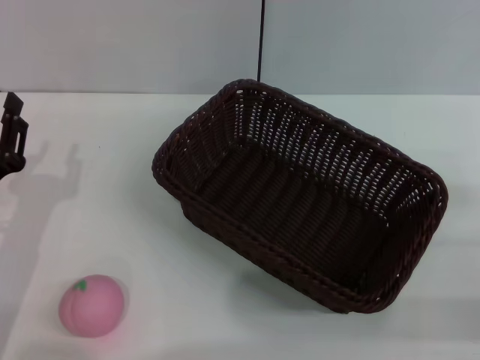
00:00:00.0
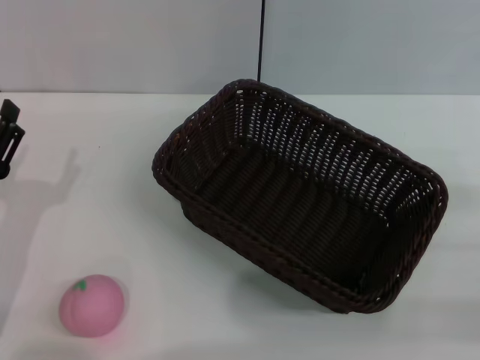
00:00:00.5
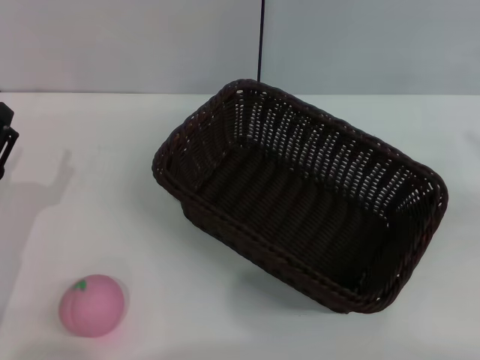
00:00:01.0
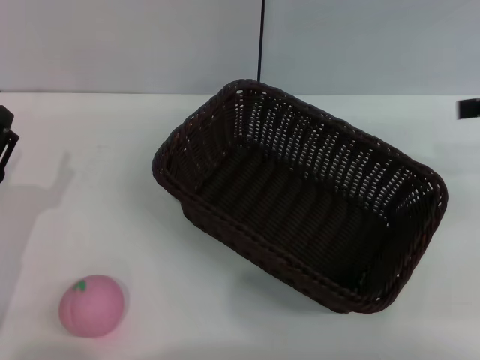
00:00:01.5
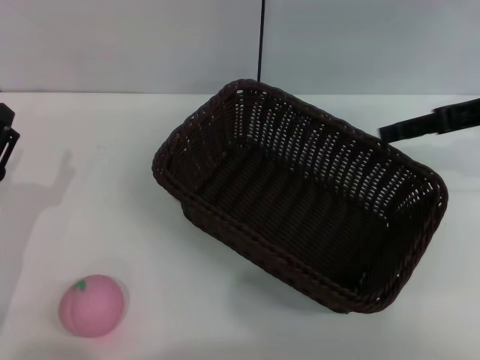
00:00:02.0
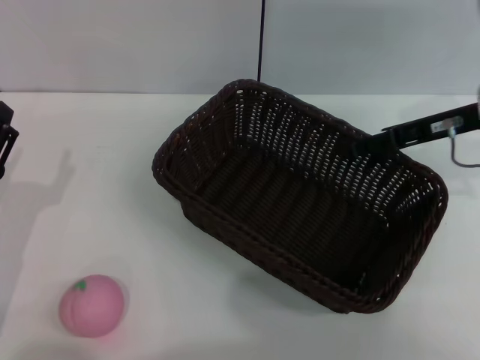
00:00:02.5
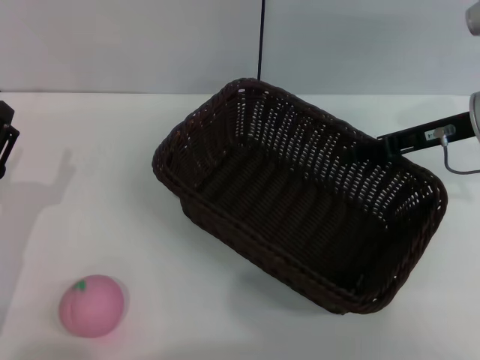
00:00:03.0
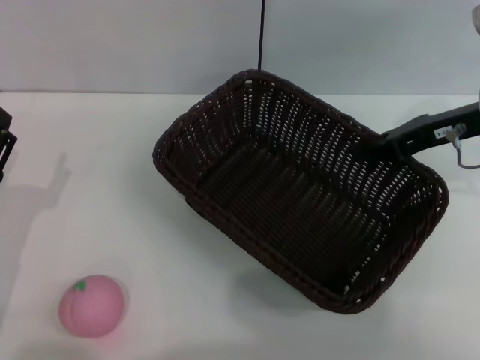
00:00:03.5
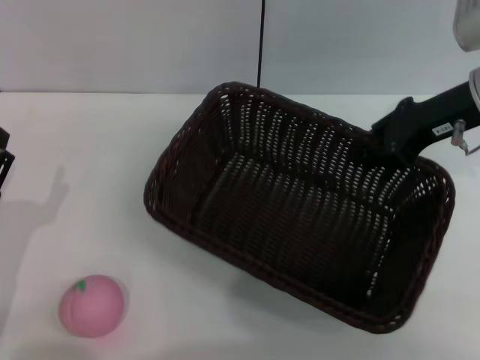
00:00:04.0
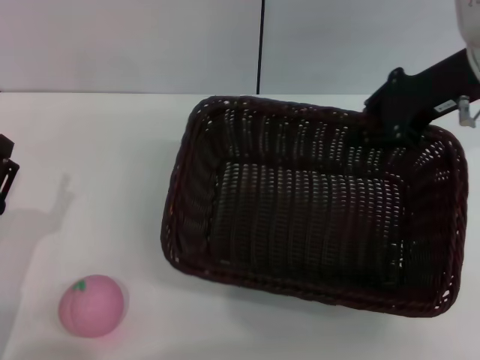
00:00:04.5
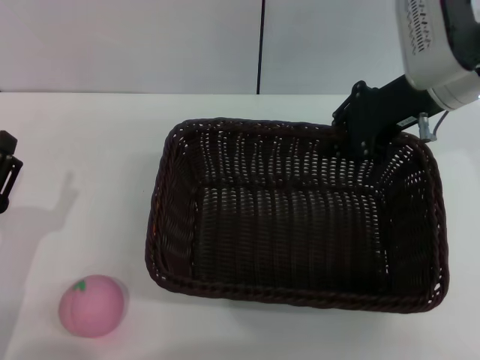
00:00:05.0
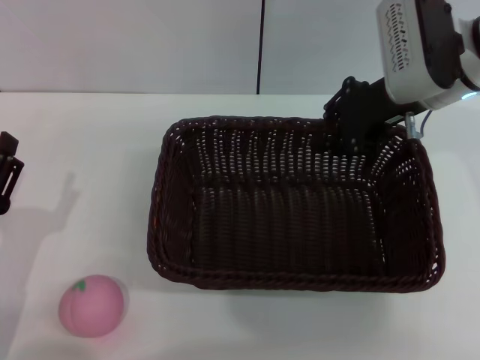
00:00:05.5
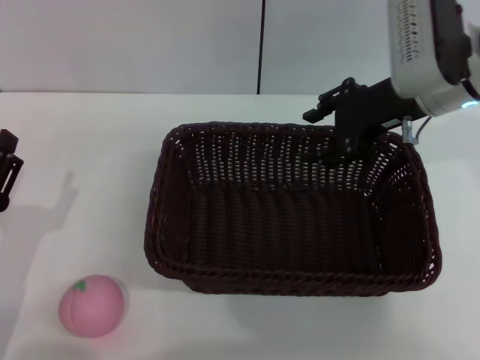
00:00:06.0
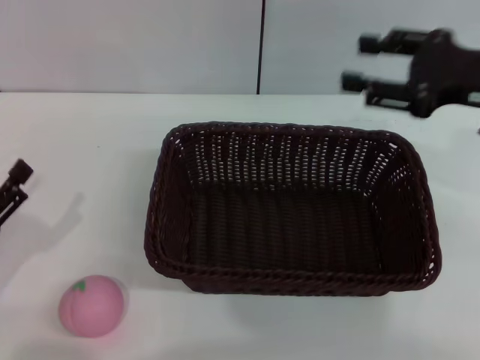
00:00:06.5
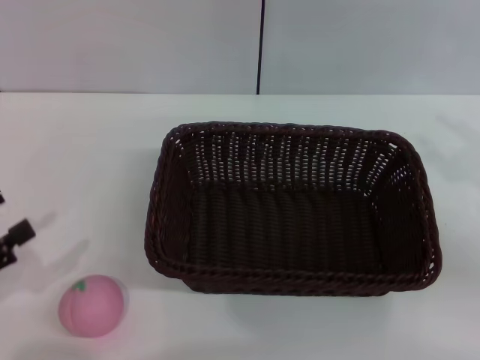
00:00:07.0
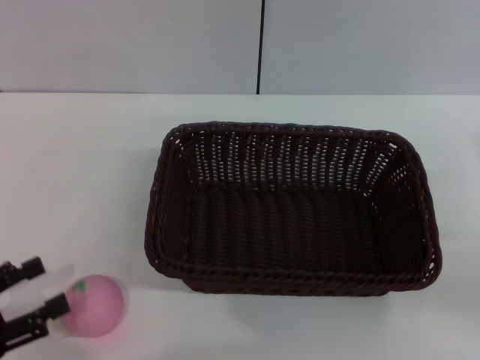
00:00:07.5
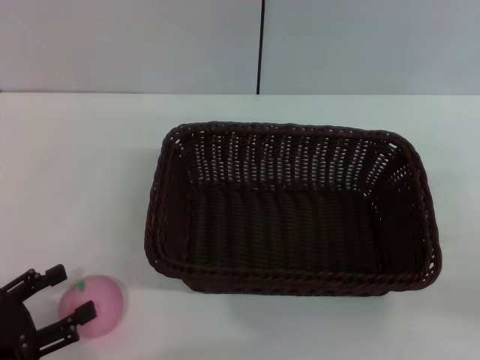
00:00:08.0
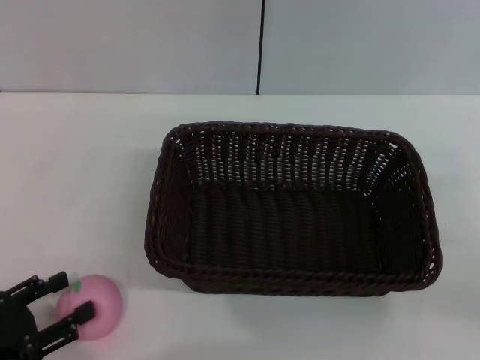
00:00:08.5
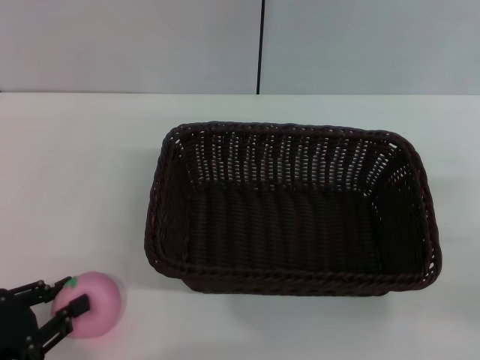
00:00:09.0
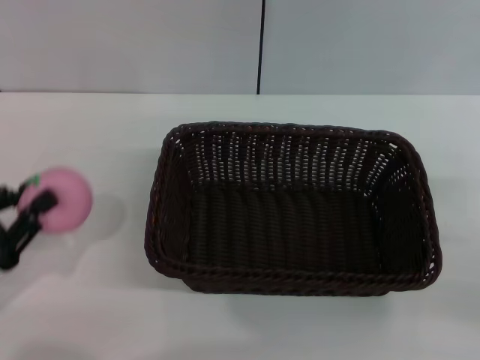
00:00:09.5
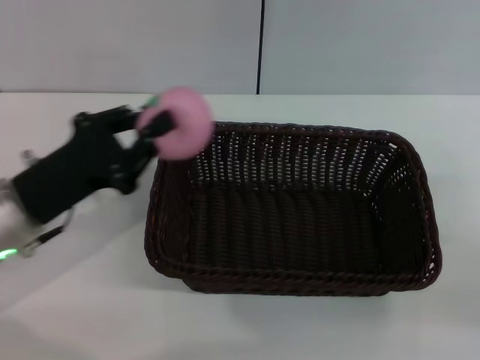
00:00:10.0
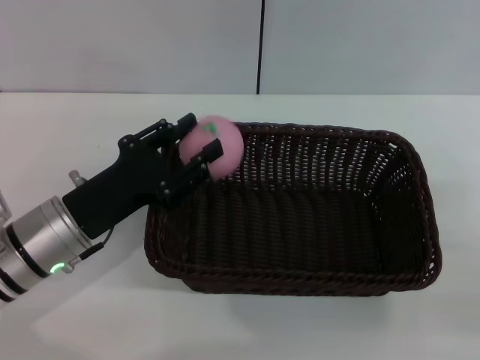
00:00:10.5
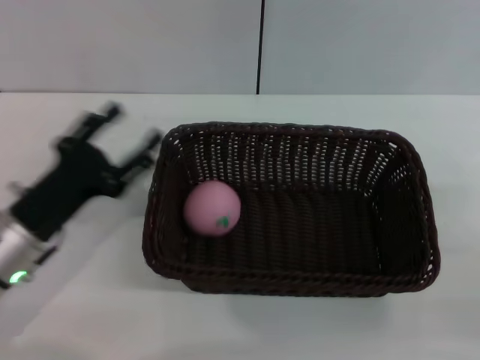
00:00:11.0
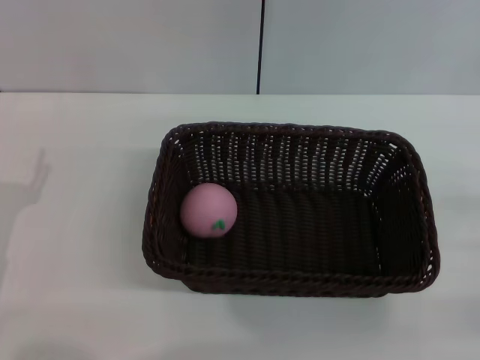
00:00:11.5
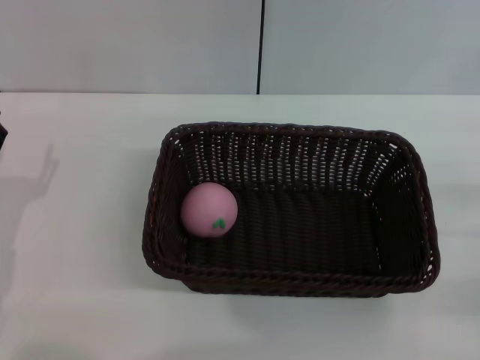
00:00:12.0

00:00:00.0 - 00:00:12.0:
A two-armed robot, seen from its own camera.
Step, 00:00:00.0 - 00:00:03.5: Pick up the dark basket with the right gripper.
Step, 00:00:04.0 - 00:00:06.0: Place the dark basket in the center of view with the right gripper.
Step, 00:00:06.5 - 00:00:09.5: Pick up the peach with the left gripper.
Step, 00:00:10.0 - 00:00:10.5: Place the peach into the basket with the left gripper.
00:00:00.0 - 00:00:02.0: The right gripper travels forward, upward and to the left by some 20 cm, and opens. The left gripper opens up.
00:00:02.0 - 00:00:04.0: The right gripper goes roughly 5 cm to the left, and closes.
00:00:04.0 - 00:00:06.0: The right gripper changes place by approximately 5 cm, and opens up.
00:00:06.0 - 00:00:08.0: The right gripper is displaced to the right, backward and downward by roughly 25 cm. The left gripper is displaced to the left by roughly 5 cm.
00:00:08.0 - 00:00:10.0: The left gripper shifts some 15 cm forward and to the right, and closes.
00:00:10.0 - 00:00:12.0: The left gripper shifts some 5 cm to the left, and opens.

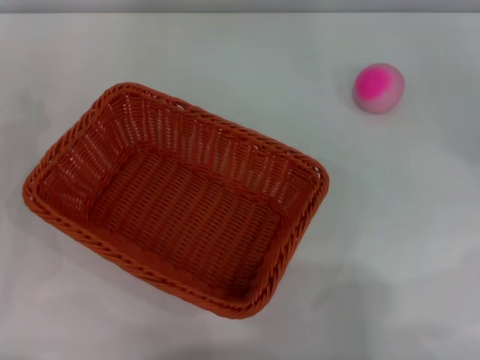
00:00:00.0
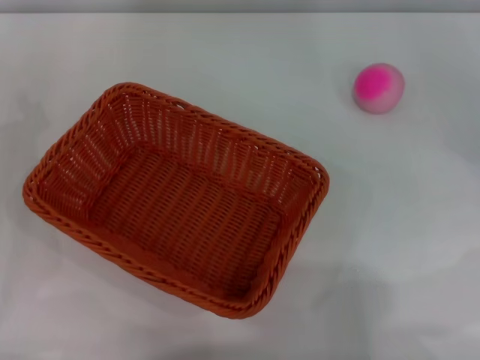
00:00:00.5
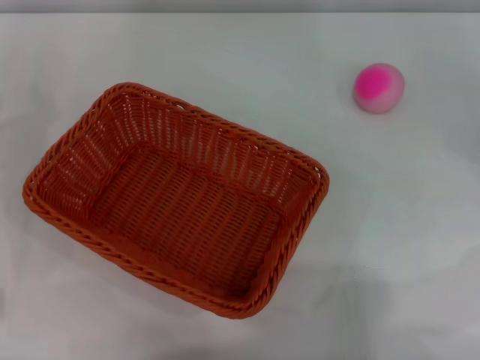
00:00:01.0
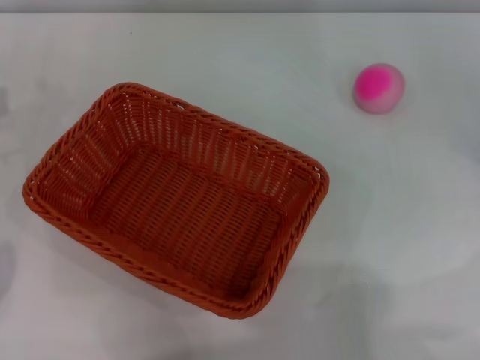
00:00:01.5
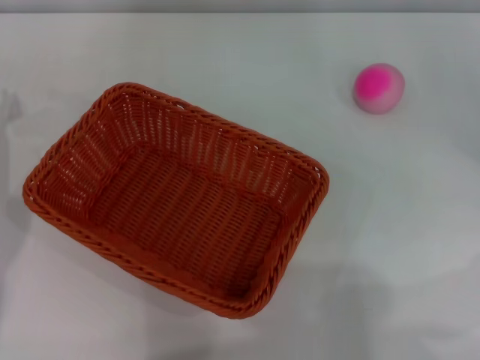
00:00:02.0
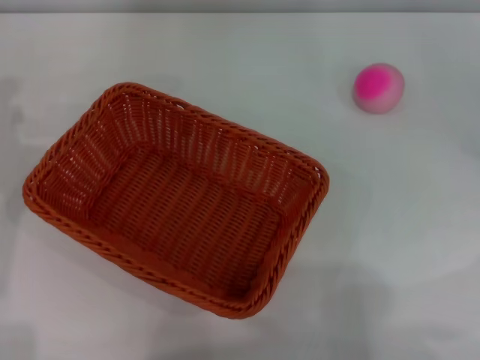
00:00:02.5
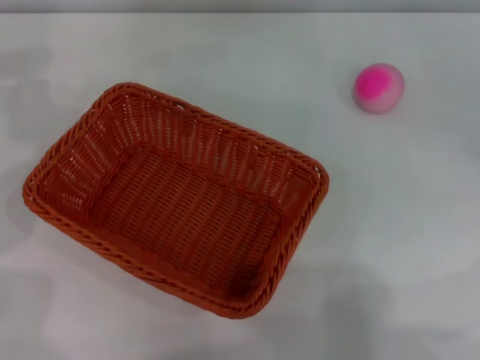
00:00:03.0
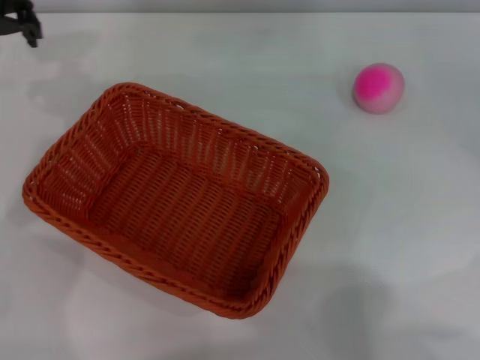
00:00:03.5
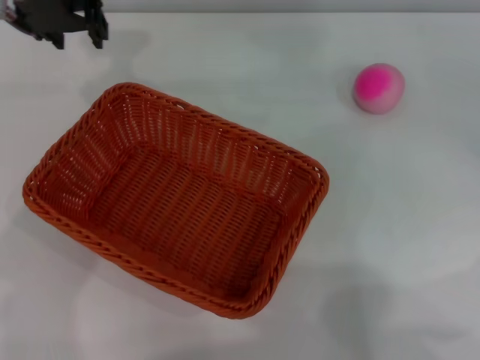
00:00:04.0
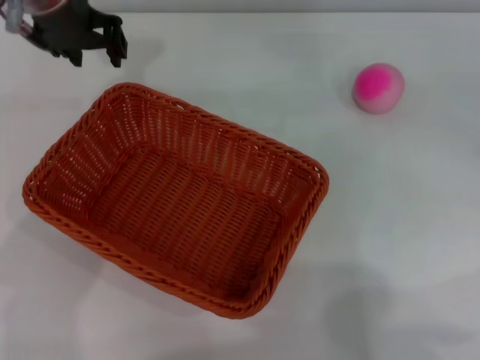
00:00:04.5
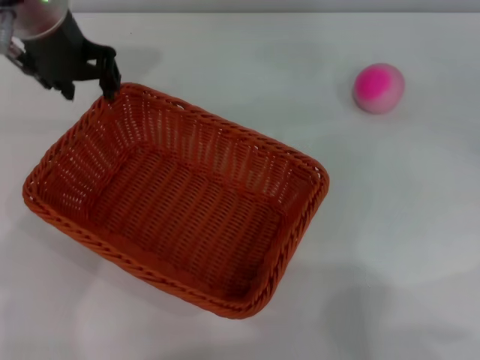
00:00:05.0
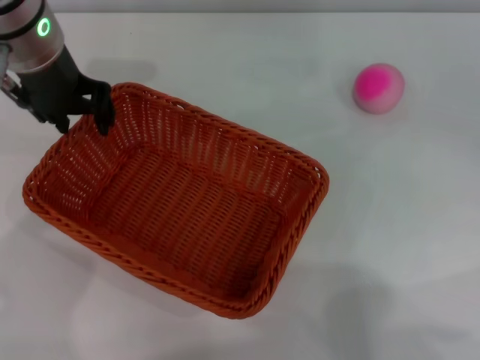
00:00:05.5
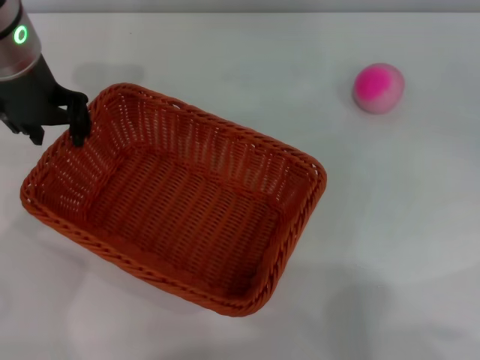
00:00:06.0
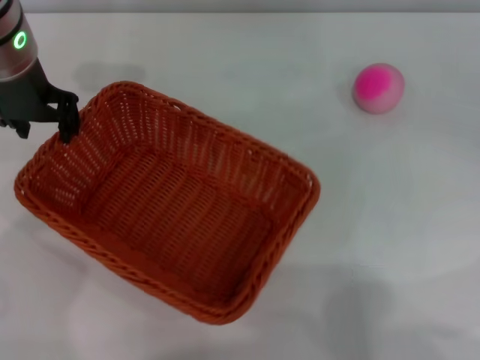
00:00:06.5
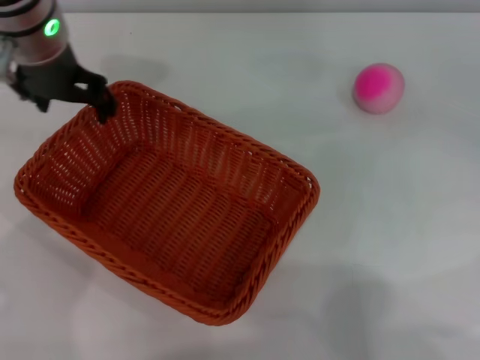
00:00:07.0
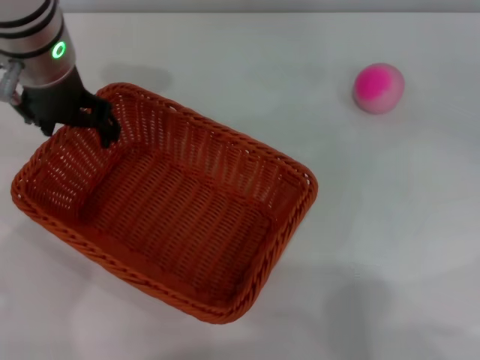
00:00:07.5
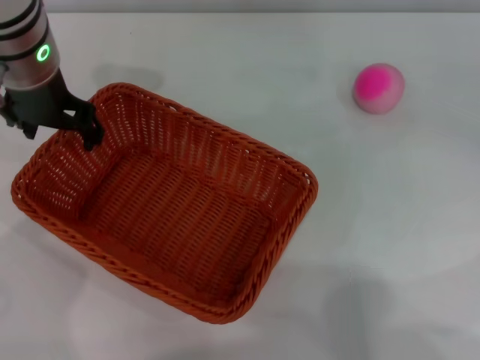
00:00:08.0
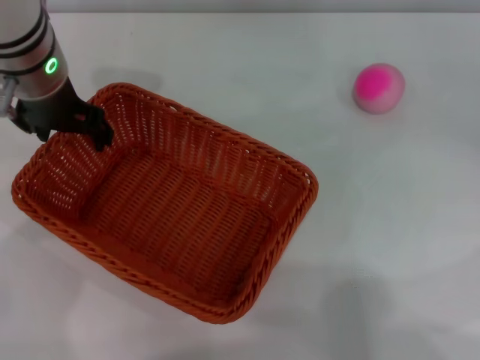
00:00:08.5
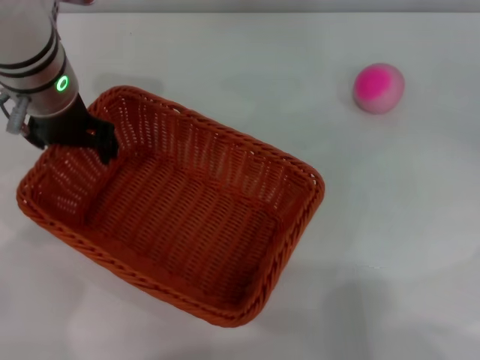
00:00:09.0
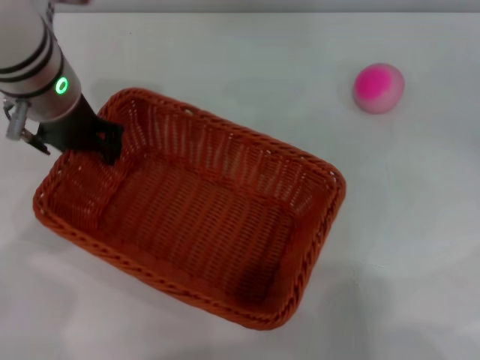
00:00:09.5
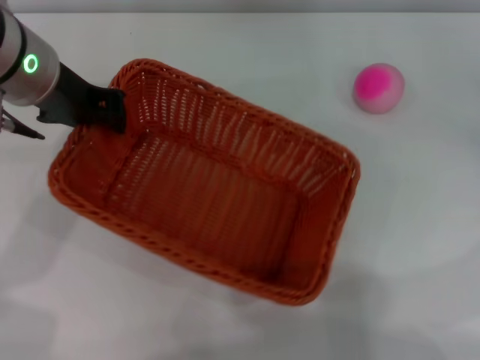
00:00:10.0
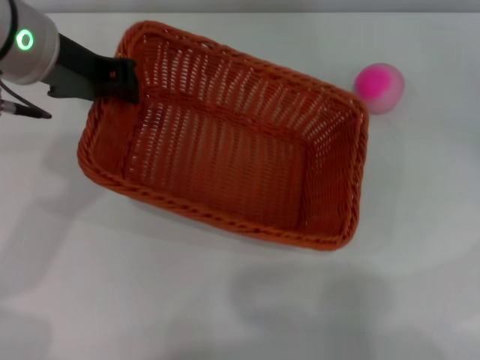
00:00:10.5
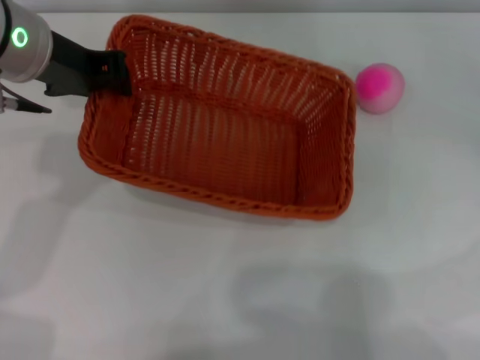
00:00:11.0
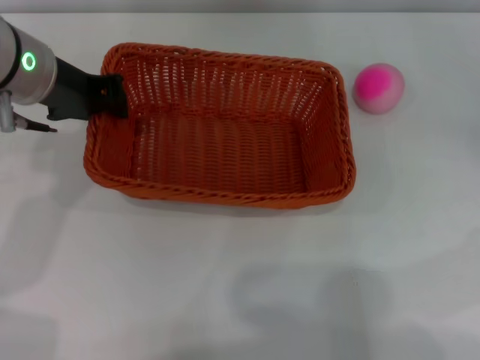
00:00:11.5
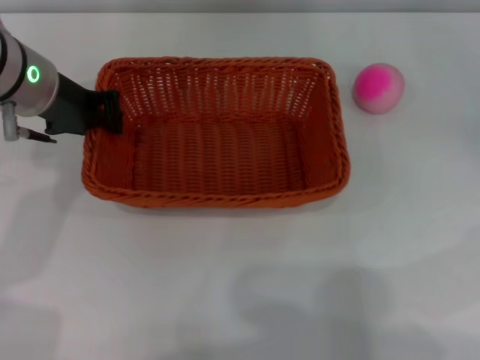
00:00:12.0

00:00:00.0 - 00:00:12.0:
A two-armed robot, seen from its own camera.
Step, 00:00:00.0 - 00:00:09.5: Pick up the light basket with the left gripper.
00:00:02.0 - 00:00:04.0: The left gripper goes roughly 20 cm to the right, upward and forward.
00:00:04.0 - 00:00:06.0: The left gripper moves approximately 5 cm.
00:00:06.0 - 00:00:08.0: The left gripper opens its fingers.
00:00:08.0 - 00:00:10.0: The left gripper closes.
00:00:10.0 - 00:00:12.0: The left gripper ends up approximately 5 cm from where it was.

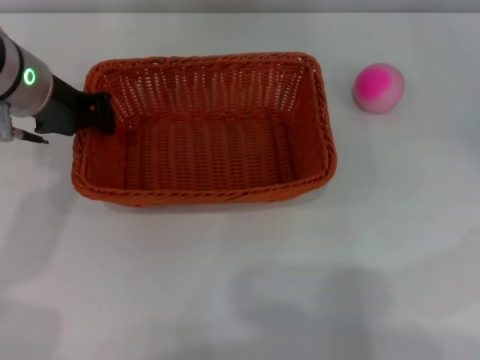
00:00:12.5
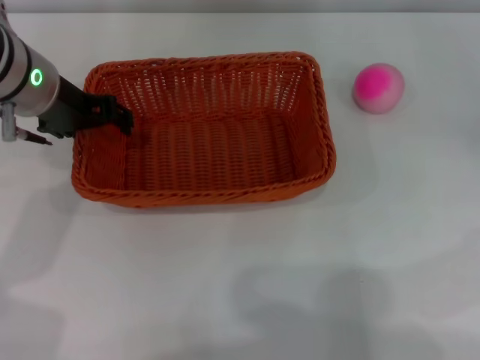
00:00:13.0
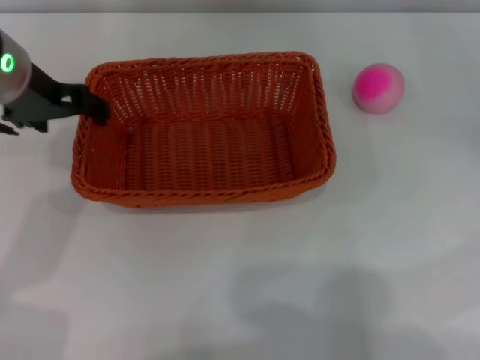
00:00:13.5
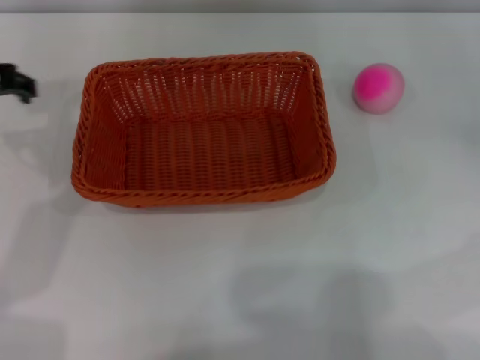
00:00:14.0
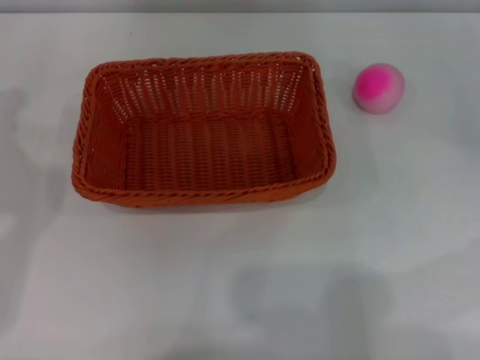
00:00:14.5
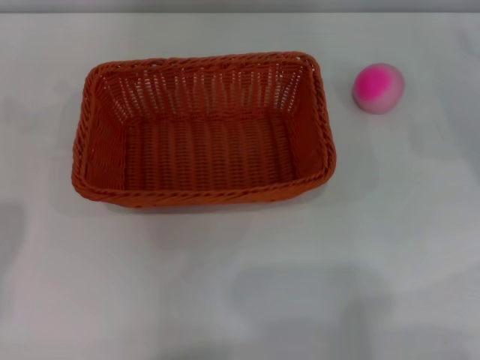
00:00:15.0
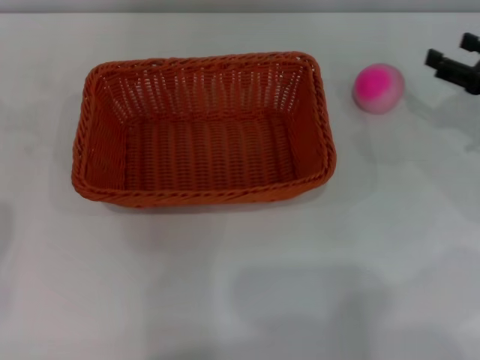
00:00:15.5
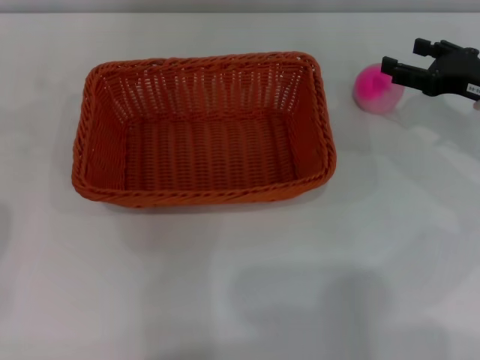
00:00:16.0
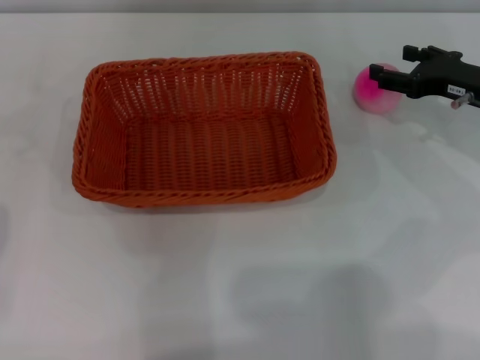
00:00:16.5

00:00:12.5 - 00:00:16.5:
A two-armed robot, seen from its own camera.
00:00:12.5 - 00:00:14.5: The left gripper shifts approximately 10 cm to the left, and opens.
00:00:14.5 - 00:00:16.5: The right gripper is displaced to the left by some 10 cm.
